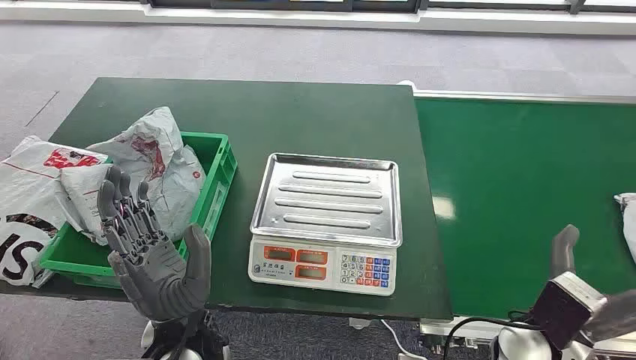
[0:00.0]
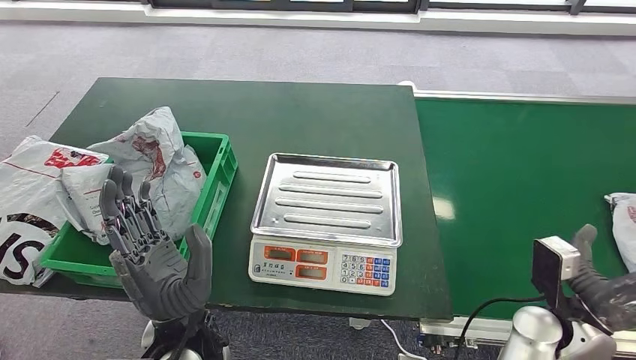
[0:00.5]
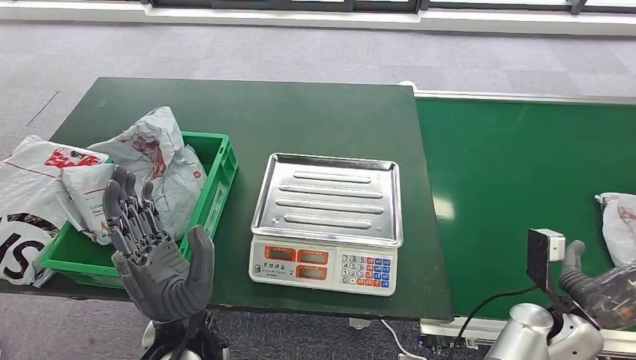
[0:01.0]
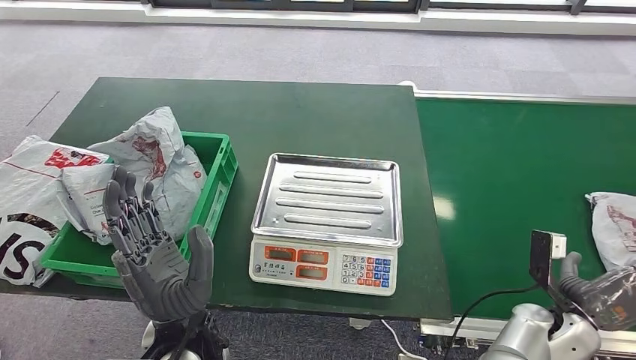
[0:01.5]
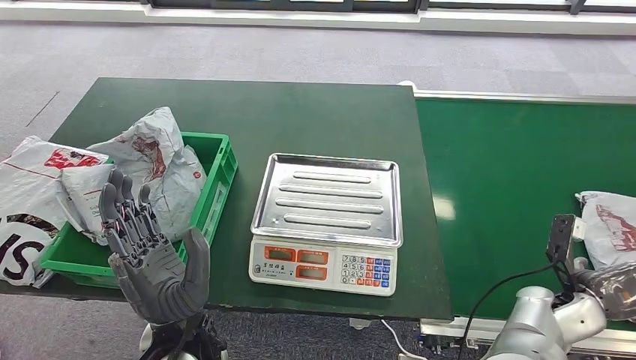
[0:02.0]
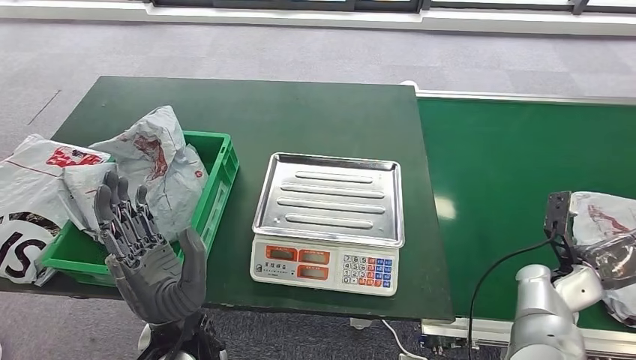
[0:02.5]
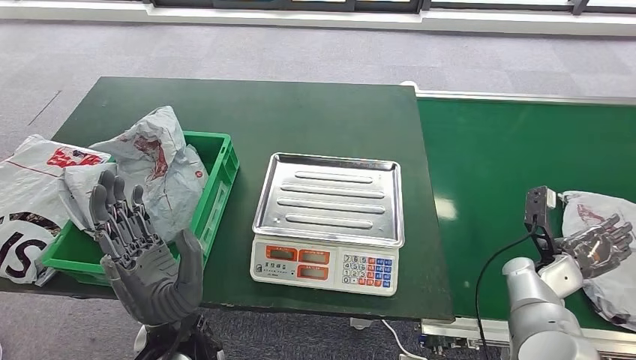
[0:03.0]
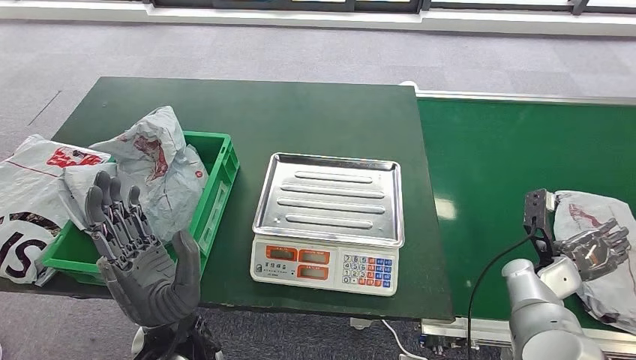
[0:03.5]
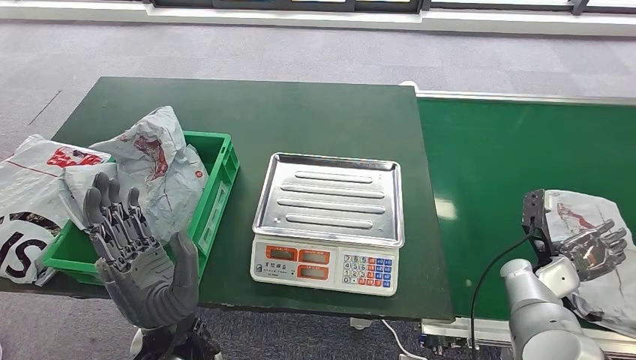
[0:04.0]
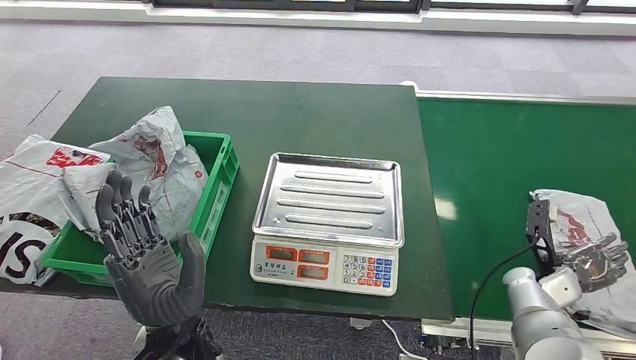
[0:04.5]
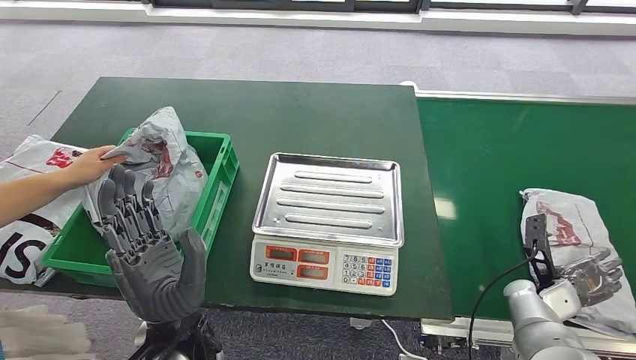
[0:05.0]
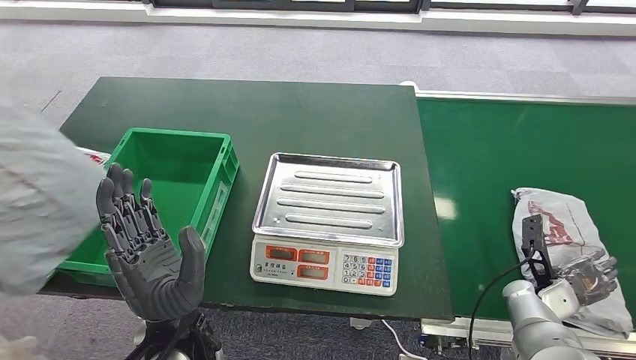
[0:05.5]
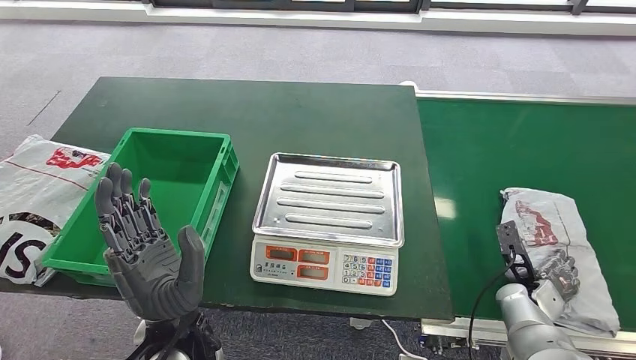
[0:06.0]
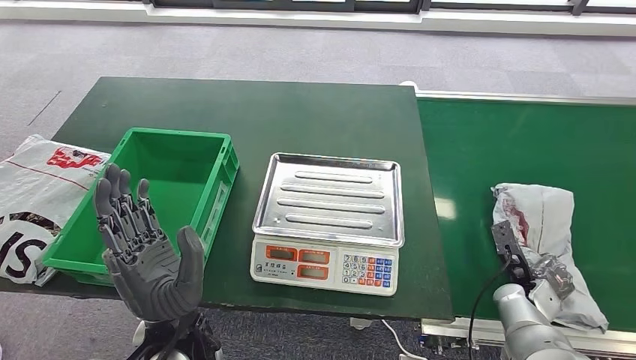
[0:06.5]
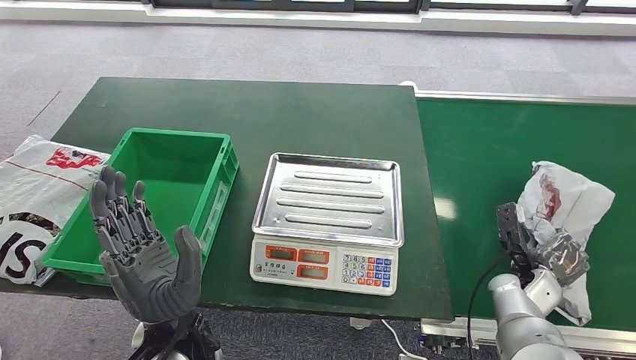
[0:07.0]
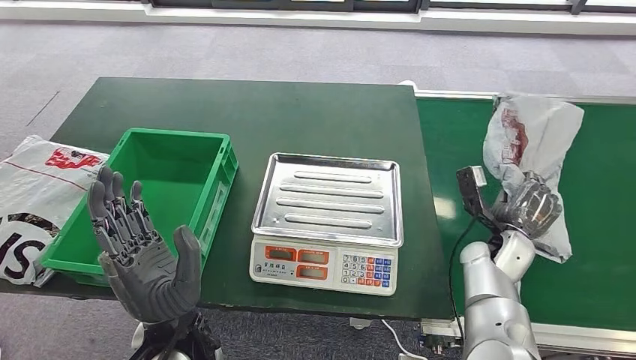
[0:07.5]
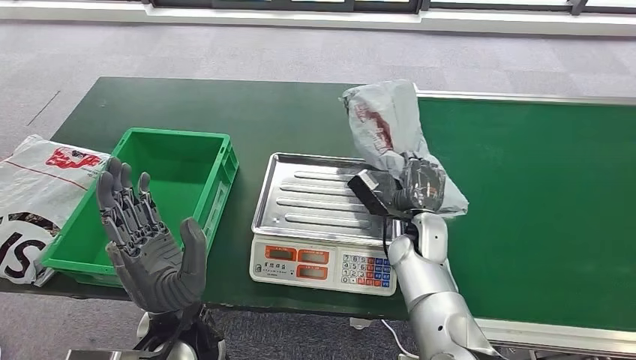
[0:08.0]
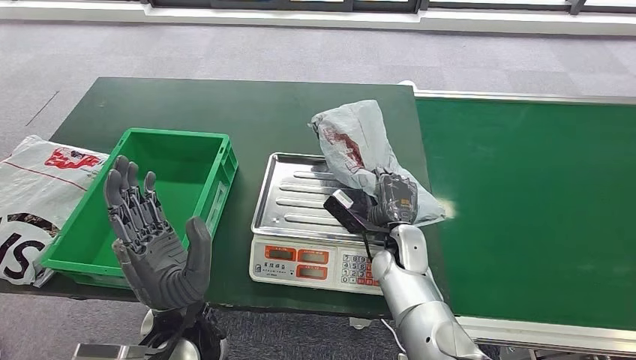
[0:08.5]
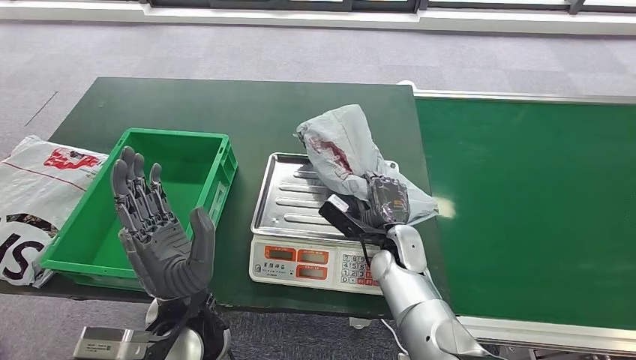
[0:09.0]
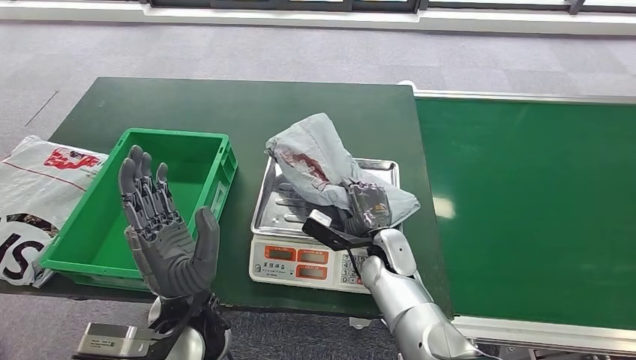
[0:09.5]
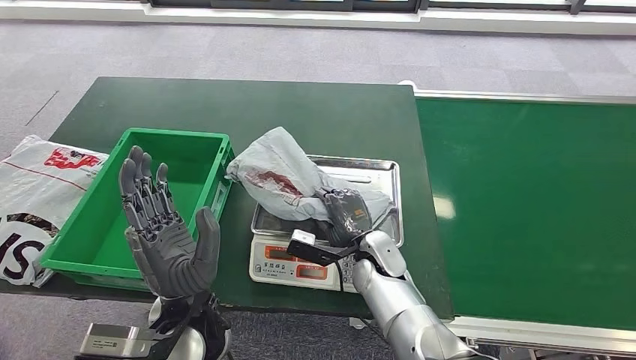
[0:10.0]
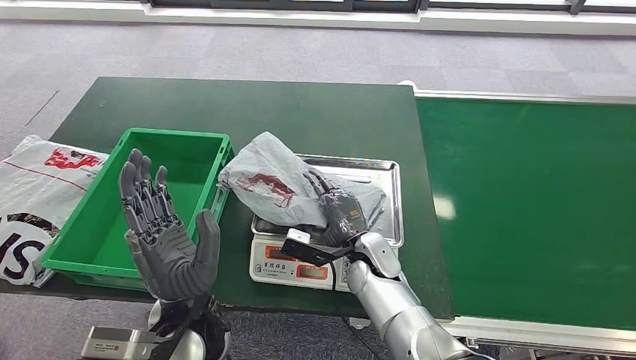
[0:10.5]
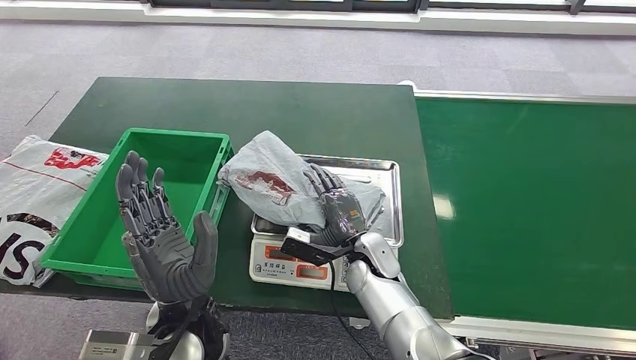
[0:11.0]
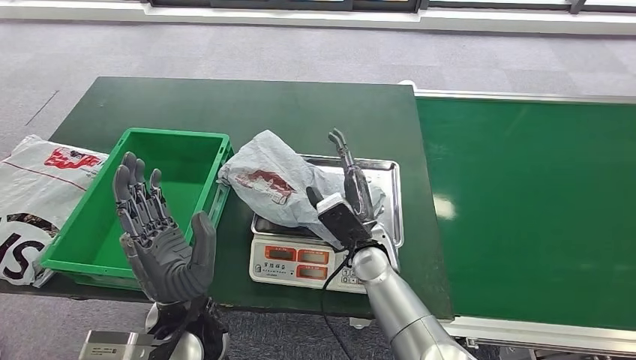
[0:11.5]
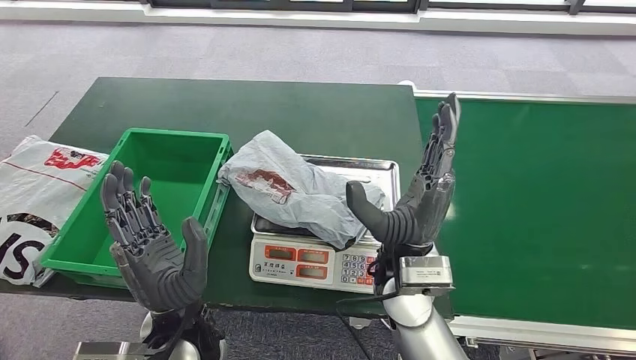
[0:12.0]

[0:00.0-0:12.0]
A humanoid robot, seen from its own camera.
Task of the whole recording: Weigh the package on the weighing device and place it in the left basket.
Step, 0:00.0 to 0:07.5: Pick up the package from the conveyor belt.
0:02.0 to 0:04.0: The right hand heads forward, covering roughly 5 cm.
0:04.0 to 0:06.0: The right hand changes place by roughly 5 cm.
0:06.0 to 0:08.0: The right hand travels to the left by some 20 cm.
0:10.0 to 0:12.0: The right hand moves upward and backward, about 15 cm.

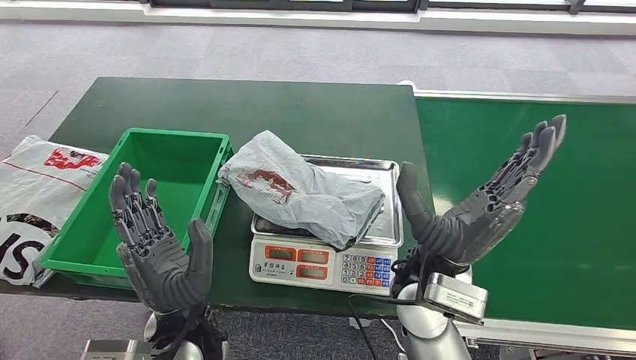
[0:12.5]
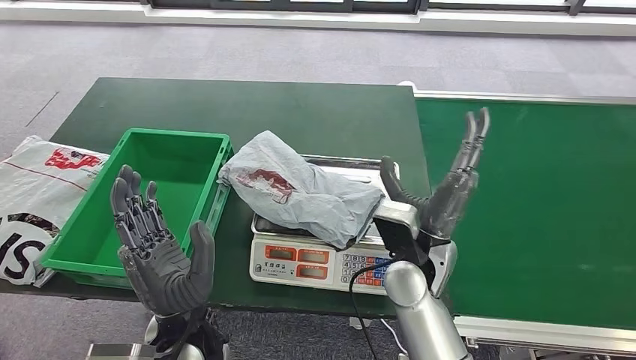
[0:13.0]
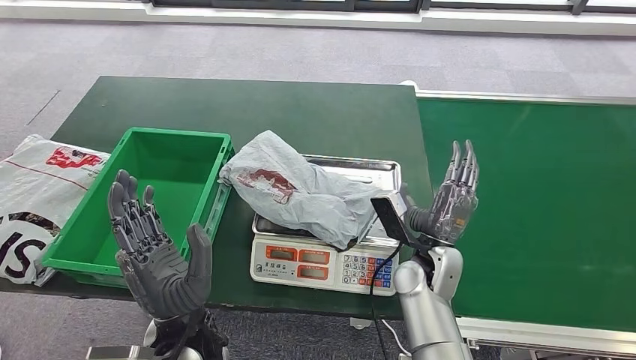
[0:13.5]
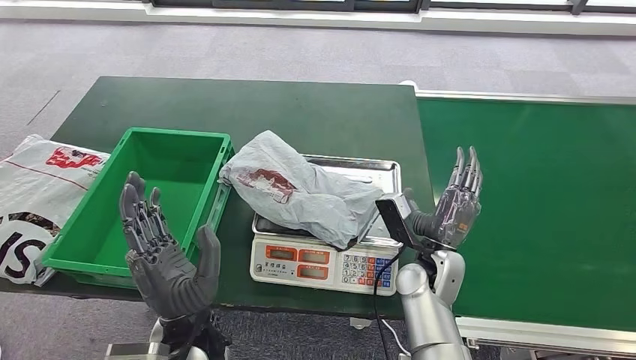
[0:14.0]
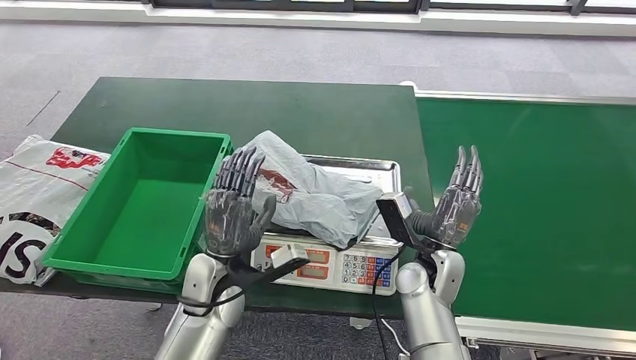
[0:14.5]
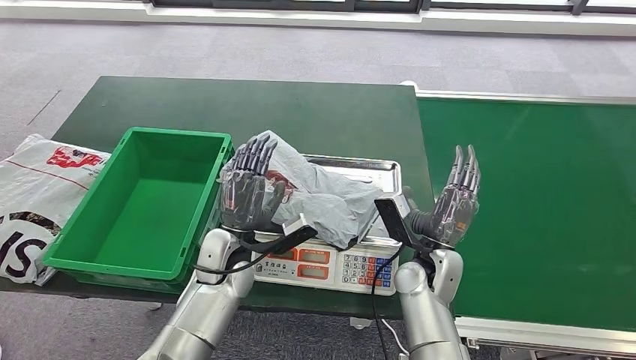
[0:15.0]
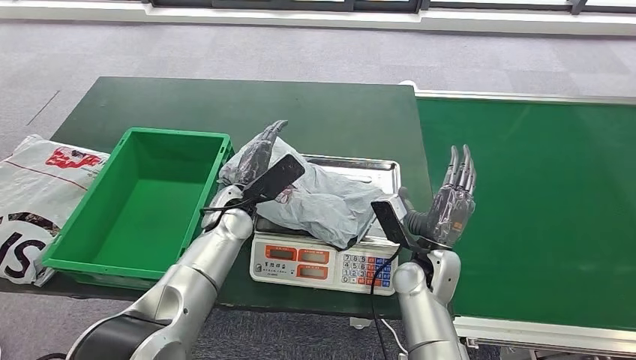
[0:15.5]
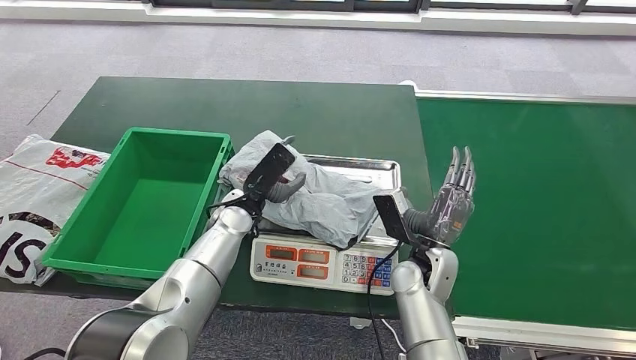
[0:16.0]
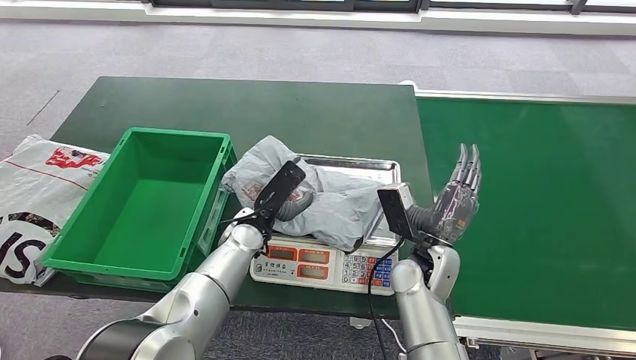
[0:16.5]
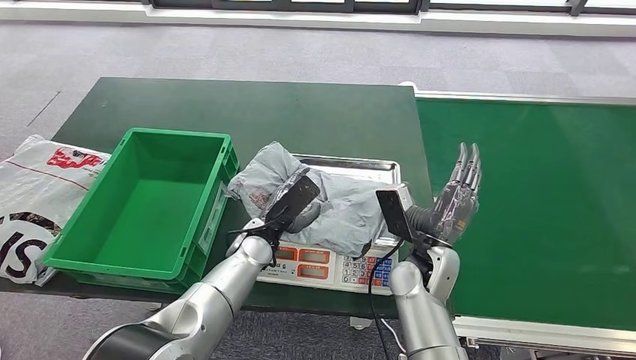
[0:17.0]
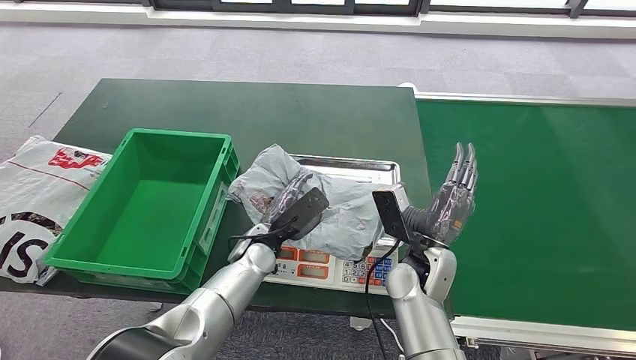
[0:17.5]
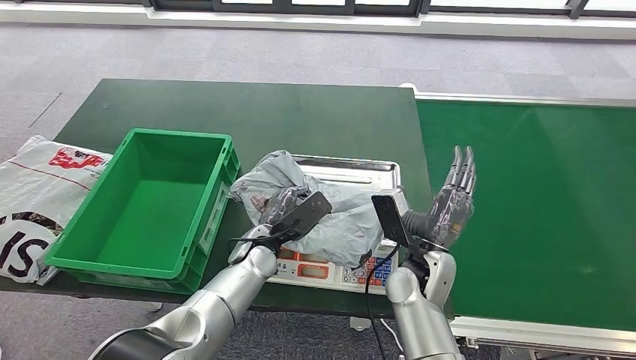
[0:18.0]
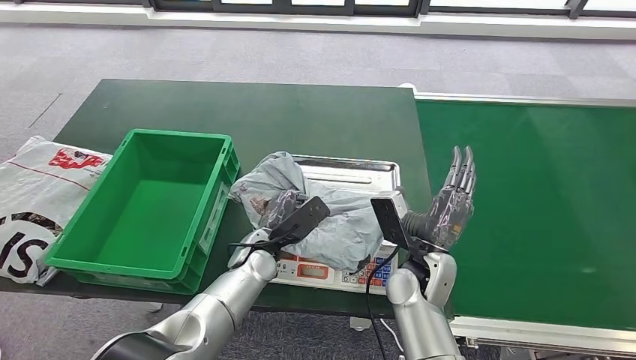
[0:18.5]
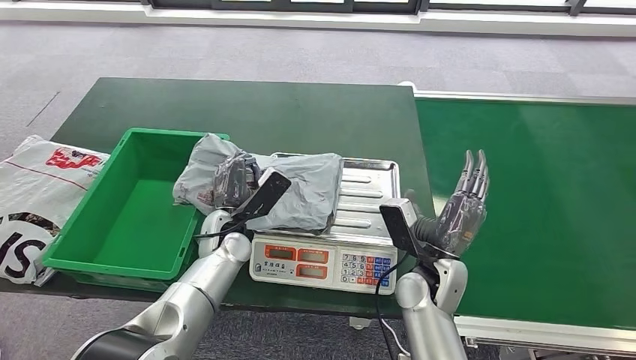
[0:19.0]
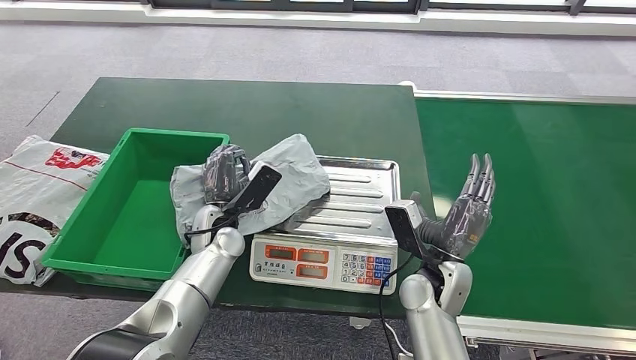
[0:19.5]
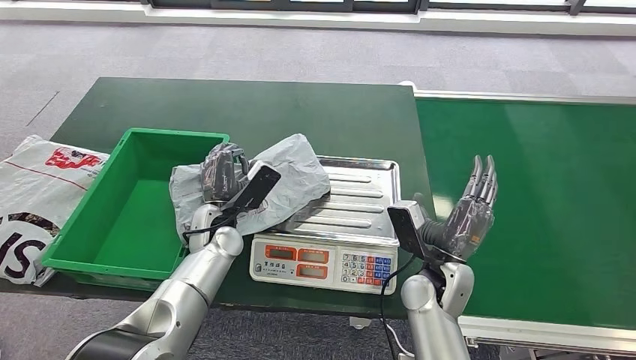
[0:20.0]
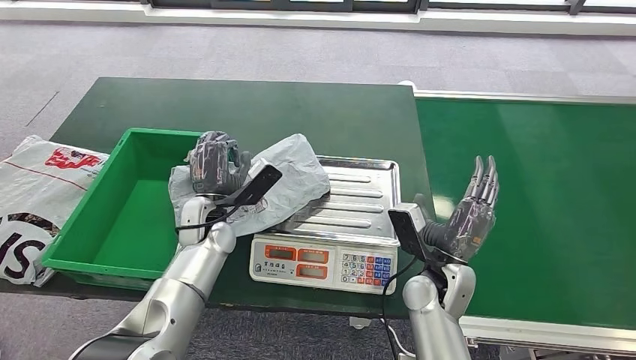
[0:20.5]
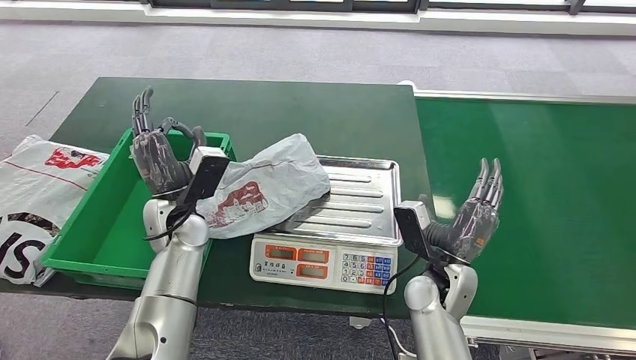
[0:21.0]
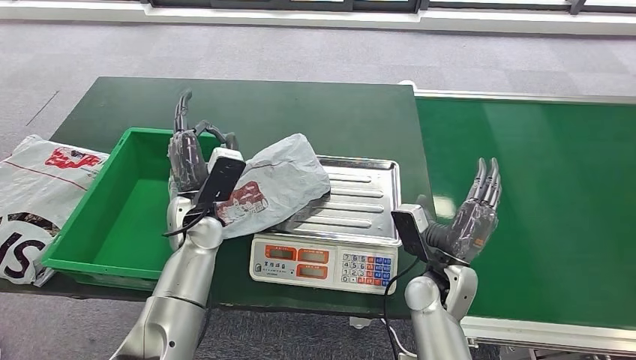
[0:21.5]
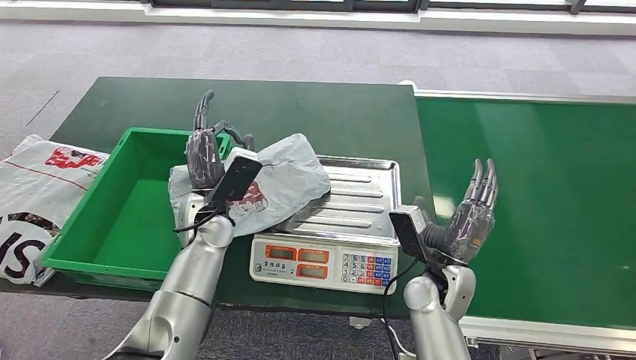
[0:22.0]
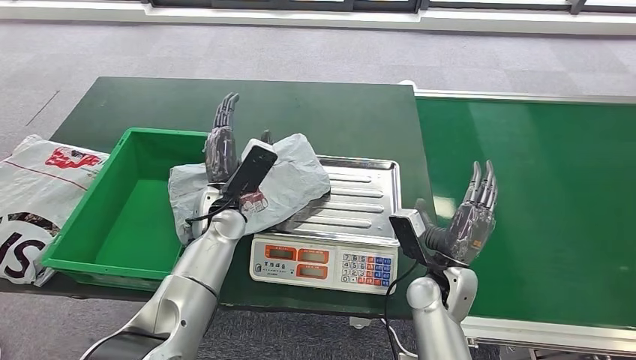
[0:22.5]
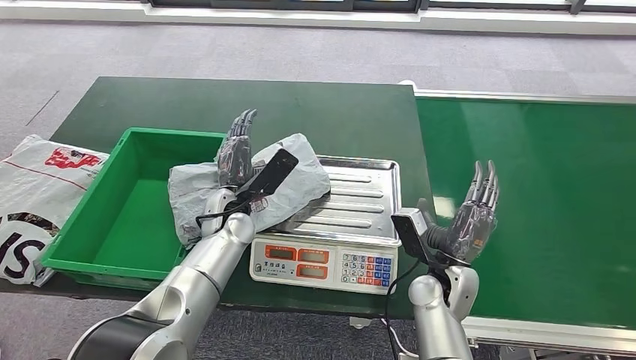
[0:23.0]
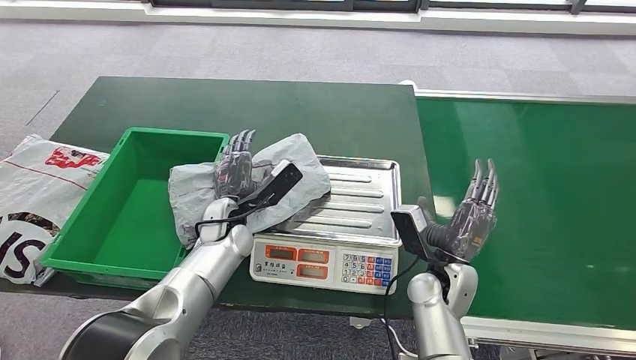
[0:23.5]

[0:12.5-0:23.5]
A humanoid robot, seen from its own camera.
Task of the whole recording: Weigh the package on the weighing device and place it in the left basket.
0:12.5 to 0:14.5: The left hand is displaced forward and downward by approximately 10 cm. Meanwhile the right hand goes about 15 cm downward and to the right.
0:14.5 to 0:16.0: The left hand shifts about 10 cm forward.
0:20.0 to 0:21.5: The left hand heads upward, covering roughly 5 cm.
0:21.5 to 0:23.5: The left hand changes place by about 5 cm.
